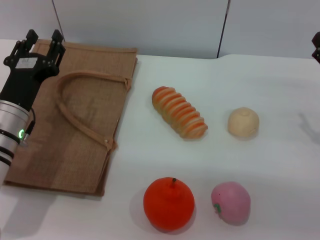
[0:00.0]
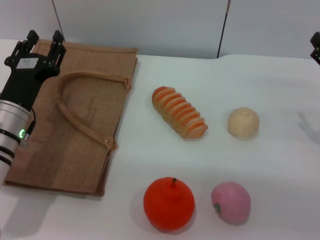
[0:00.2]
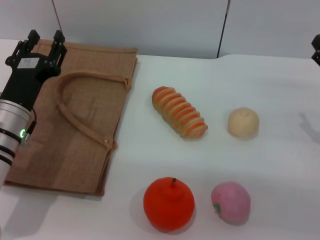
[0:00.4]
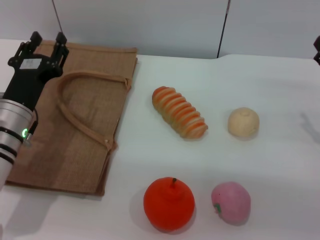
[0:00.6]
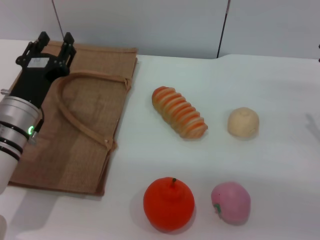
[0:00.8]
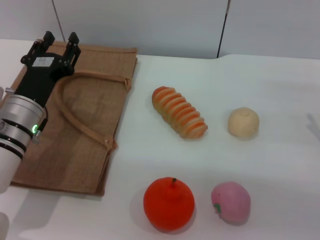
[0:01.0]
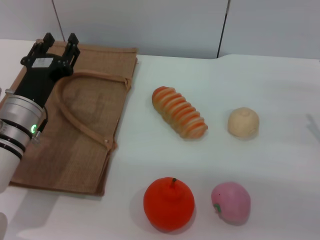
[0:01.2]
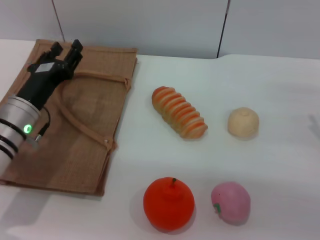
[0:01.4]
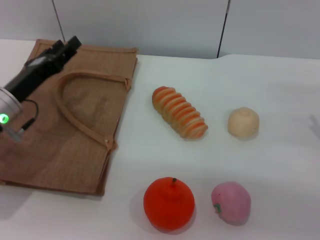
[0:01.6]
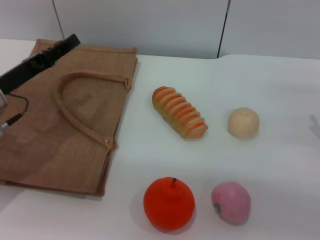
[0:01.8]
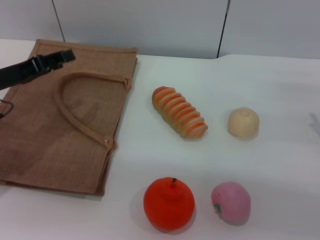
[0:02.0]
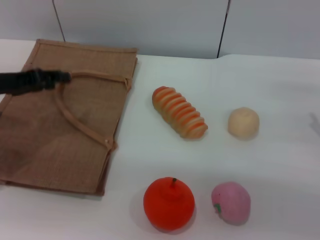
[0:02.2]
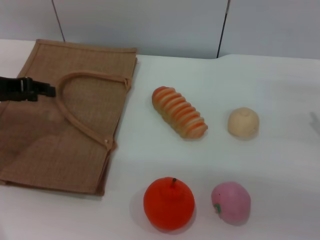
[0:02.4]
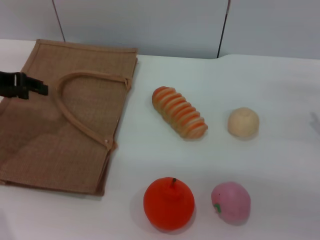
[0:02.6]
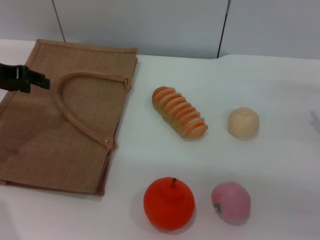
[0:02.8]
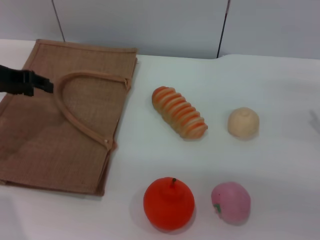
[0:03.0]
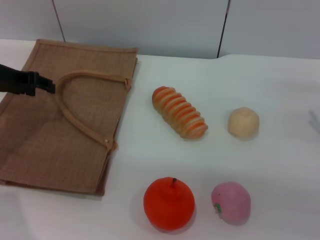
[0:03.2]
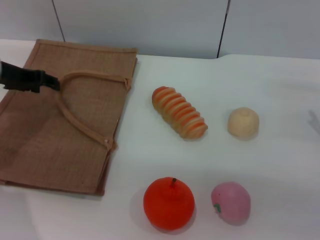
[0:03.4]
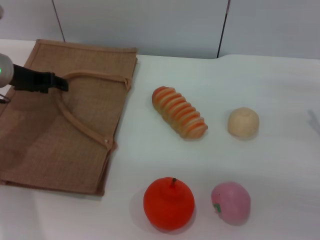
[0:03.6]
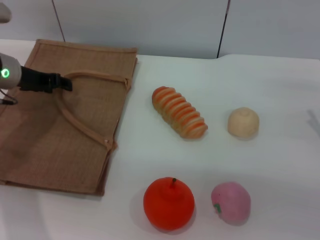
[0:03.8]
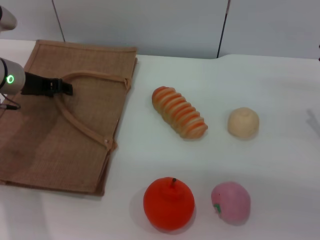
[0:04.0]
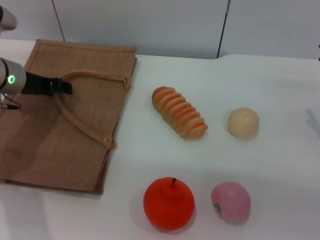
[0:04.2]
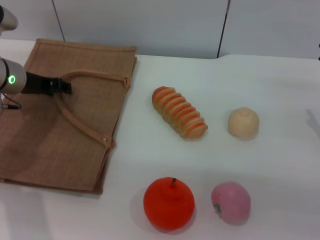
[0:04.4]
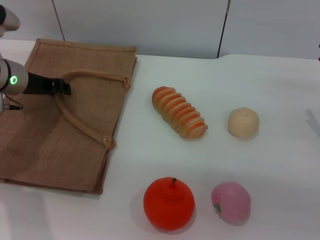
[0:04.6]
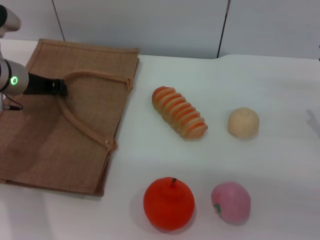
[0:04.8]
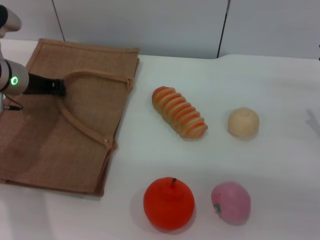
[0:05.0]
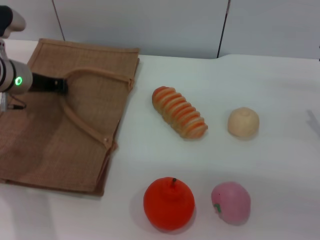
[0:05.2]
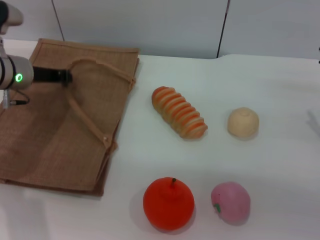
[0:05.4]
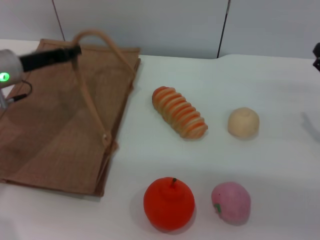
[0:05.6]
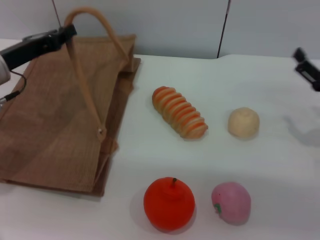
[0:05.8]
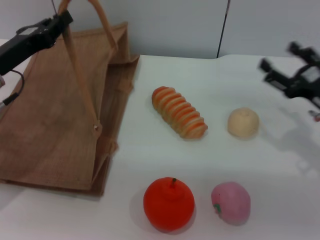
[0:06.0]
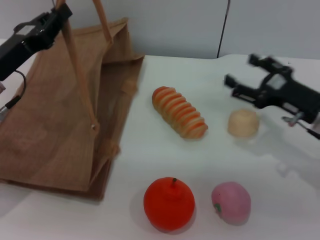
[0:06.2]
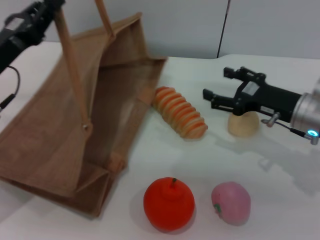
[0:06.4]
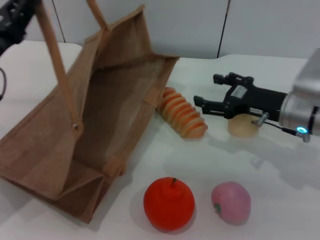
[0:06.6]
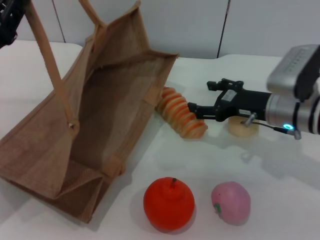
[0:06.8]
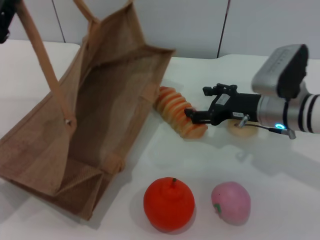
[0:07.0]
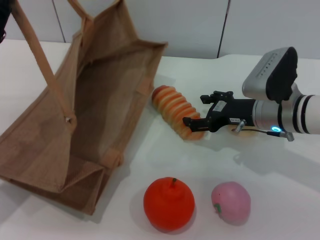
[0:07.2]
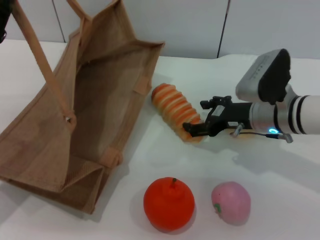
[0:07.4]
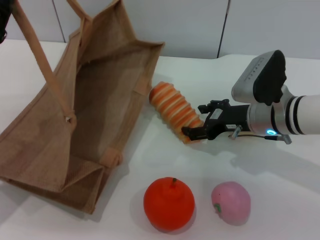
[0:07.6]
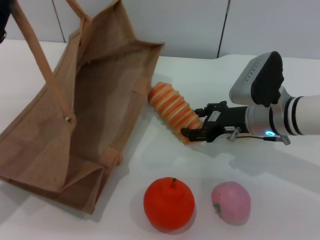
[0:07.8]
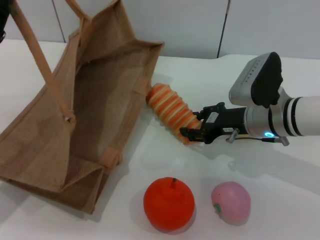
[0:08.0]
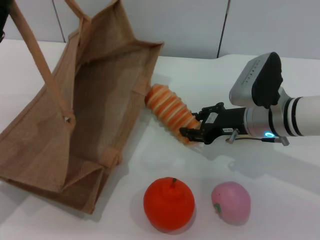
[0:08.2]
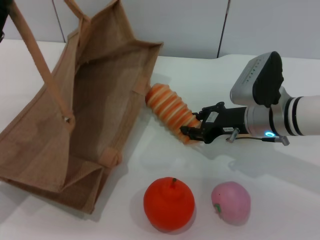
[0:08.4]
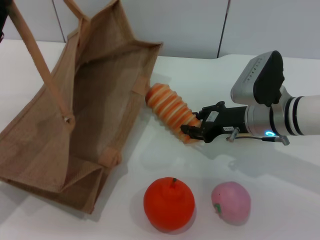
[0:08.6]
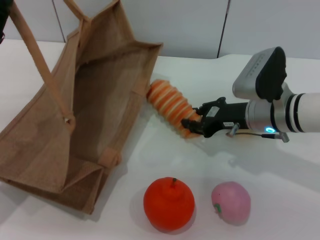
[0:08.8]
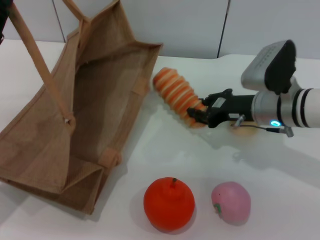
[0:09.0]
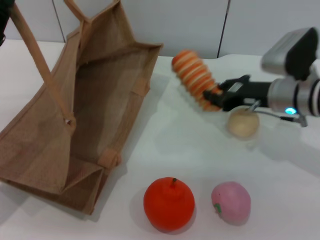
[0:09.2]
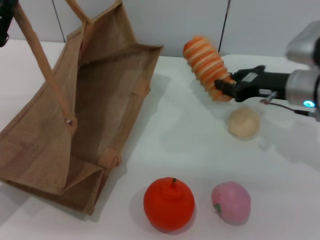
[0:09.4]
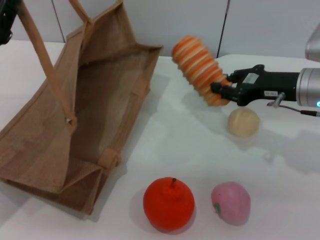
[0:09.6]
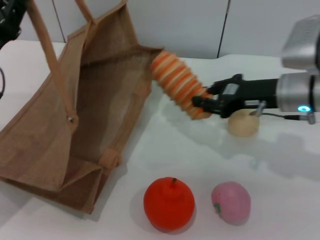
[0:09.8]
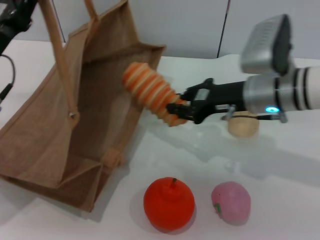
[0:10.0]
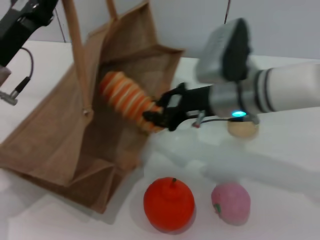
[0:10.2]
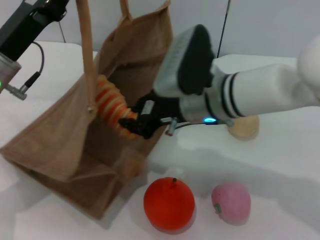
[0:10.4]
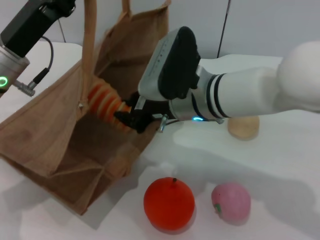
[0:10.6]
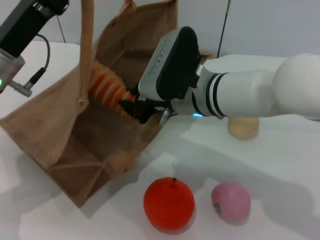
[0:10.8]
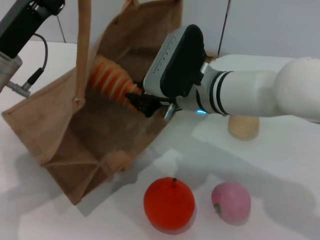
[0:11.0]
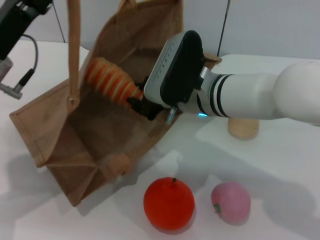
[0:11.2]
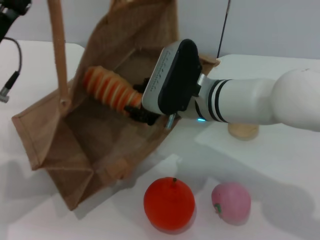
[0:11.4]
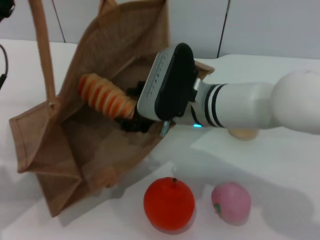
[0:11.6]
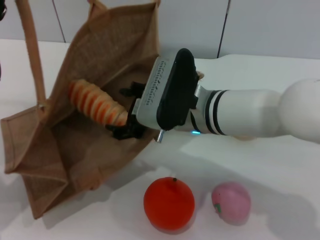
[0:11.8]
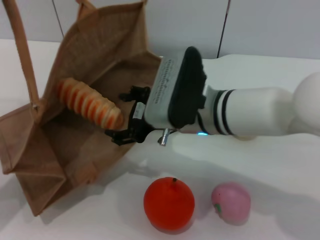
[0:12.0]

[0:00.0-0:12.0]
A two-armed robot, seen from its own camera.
Task of the whole recording: pick up the bread and egg yolk pastry from the table and place it in the brown handbag.
Step, 0:00.0 to 0:05.8: Lift the woven bag with the left gripper to open it.
Step, 0:06.0 to 0:09.2: Pick up the bread with the right gripper.
Step, 0:09.4 to 0:12.0: Place the bread into the woven bag with the right gripper.
0:01.6 to 0:03.0: The left gripper travels upward, forward and to the left by about 15 cm.
0:03.0 to 0:04.4: The left gripper is displaced downward by some 5 cm.
0:04.4 to 0:06.0: The left gripper moves backward, about 10 cm, and closes up.
0:06.0 to 0:07.6: The left gripper is displaced backward by roughly 5 cm. Meanwhile the right gripper moves to the left and forward, roughly 15 cm.
0:07.6 to 0:09.0: The right gripper closes its fingers.
0:09.0 to 0:10.4: The right gripper is displaced to the left and upward by roughly 15 cm, while the left gripper moves to the right, about 5 cm.
0:10.4 to 0:12.0: The left gripper shifts by roughly 5 cm. The right gripper opens.

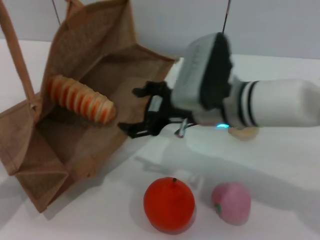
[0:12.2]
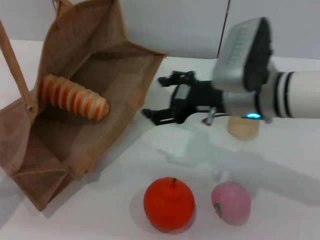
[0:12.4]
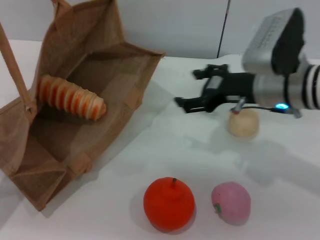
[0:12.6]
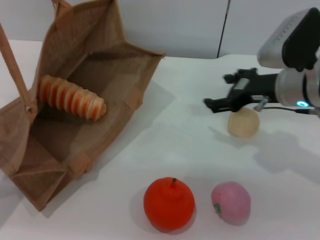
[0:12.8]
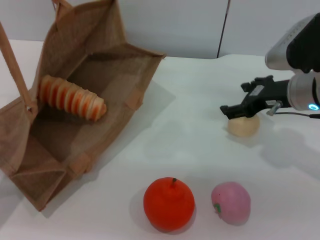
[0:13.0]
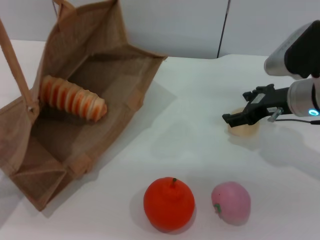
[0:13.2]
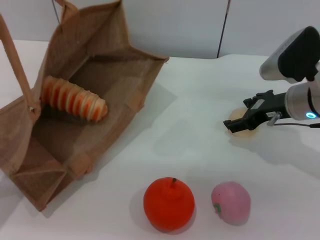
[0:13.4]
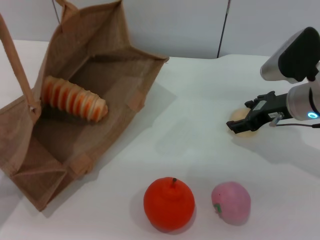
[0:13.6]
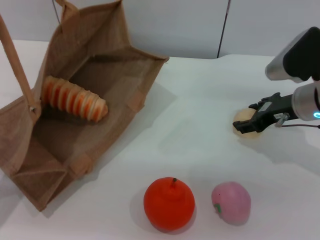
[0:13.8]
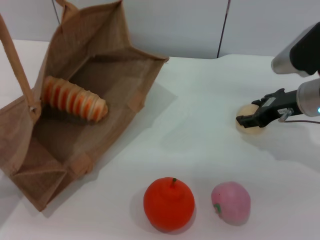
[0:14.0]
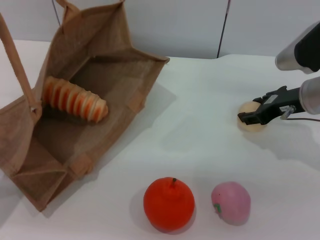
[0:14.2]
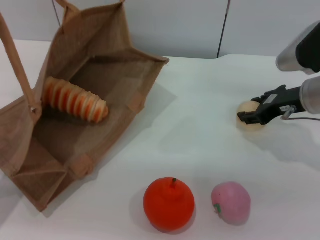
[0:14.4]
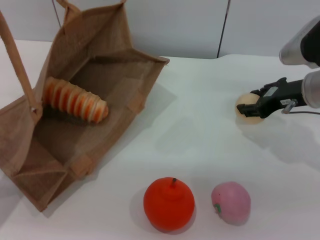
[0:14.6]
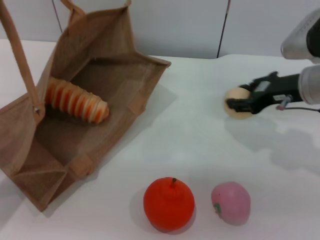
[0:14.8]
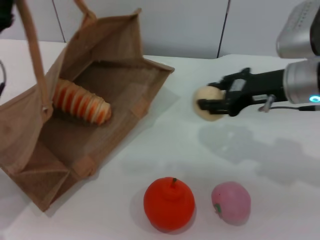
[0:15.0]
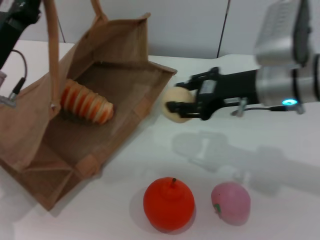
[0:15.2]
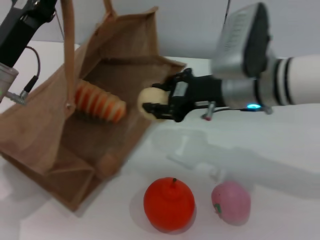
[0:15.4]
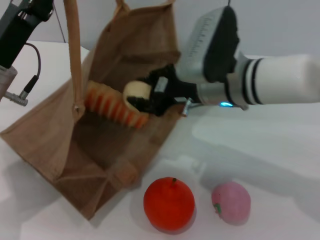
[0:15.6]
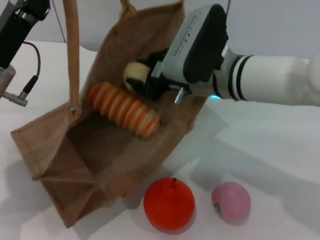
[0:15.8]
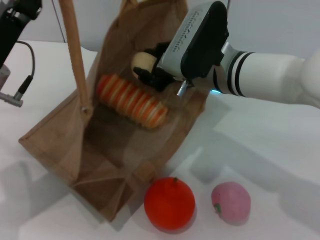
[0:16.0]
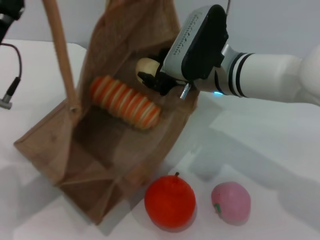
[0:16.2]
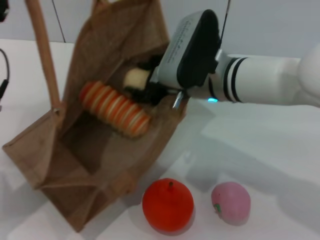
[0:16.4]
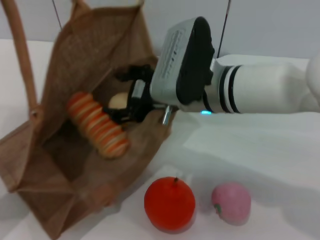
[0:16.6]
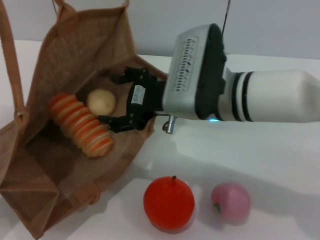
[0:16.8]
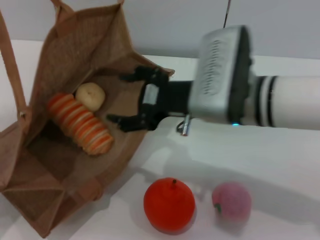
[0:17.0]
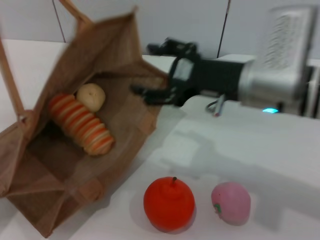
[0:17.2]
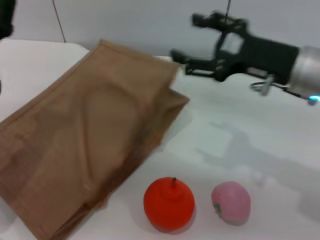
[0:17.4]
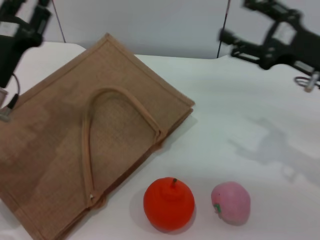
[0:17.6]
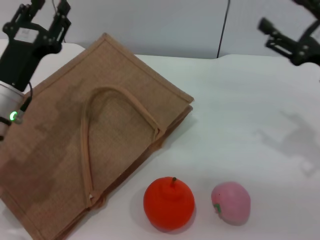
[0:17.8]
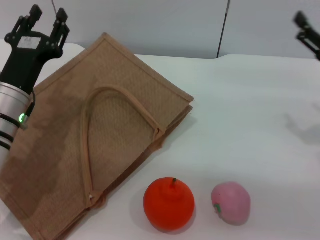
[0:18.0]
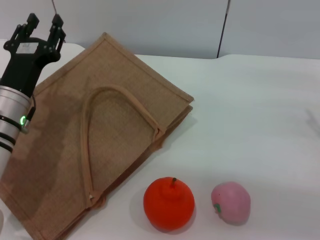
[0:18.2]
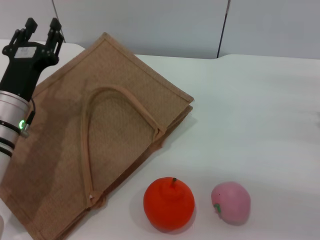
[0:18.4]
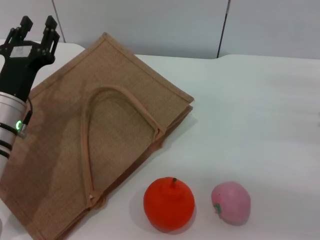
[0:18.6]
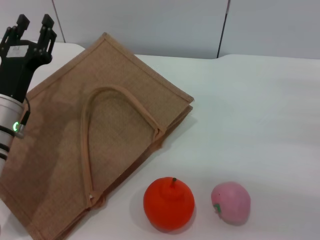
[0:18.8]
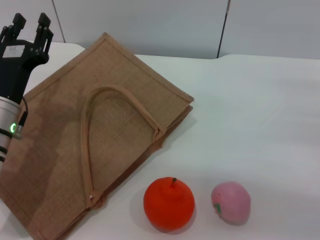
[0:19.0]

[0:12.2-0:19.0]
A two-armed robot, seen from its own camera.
Task of the whole recording: pick up the bread and egg yolk pastry from the table and place it in the brown handbag.
Step, 0:12.2 to 0:14.6: Pick up the egg yolk pastry with the right gripper.
Step, 0:14.8 to 0:16.8: Place the egg yolk pastry into the woven bag with the right gripper.
Step, 0:17.0 to 0:17.6: Lower the woven bag with the left gripper to close it.
0:12.2 to 0:13.6: The right gripper is displaced to the right by roughly 15 cm.
0:13.6 to 0:15.0: The right gripper is displaced upward by some 5 cm, and closes up.
0:15.0 to 0:16.2: The right gripper moves to the left, about 10 cm.
0:16.2 to 0:17.6: The left gripper opens up; the right gripper goes about 20 cm to the right, and opens.
0:17.6 to 0:19.0: The right gripper heads to the right and downward, covering roughly 10 cm; the left gripper opens its fingers.

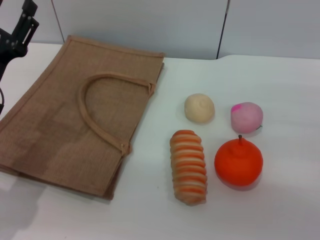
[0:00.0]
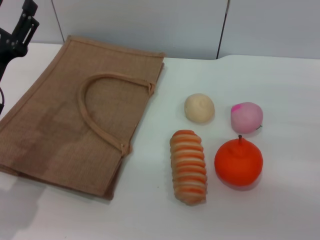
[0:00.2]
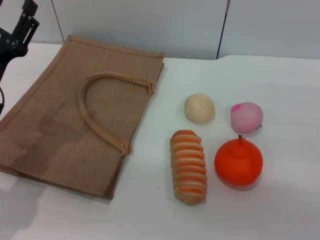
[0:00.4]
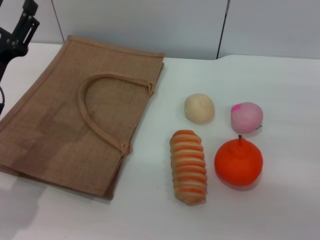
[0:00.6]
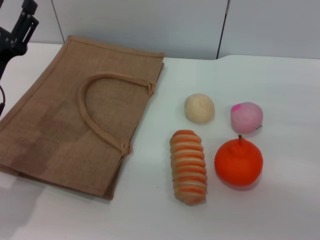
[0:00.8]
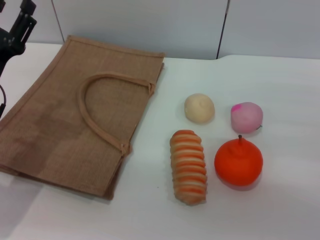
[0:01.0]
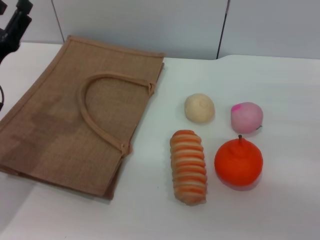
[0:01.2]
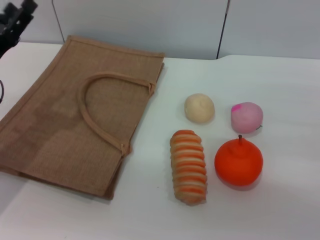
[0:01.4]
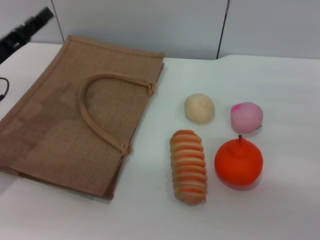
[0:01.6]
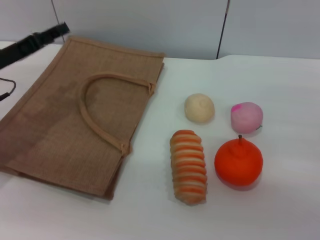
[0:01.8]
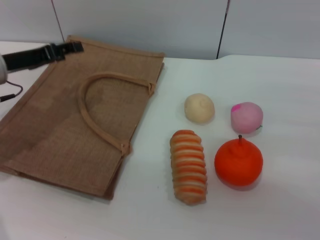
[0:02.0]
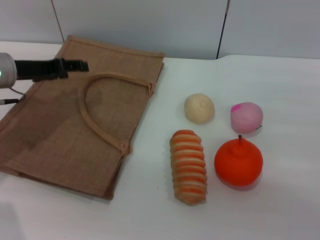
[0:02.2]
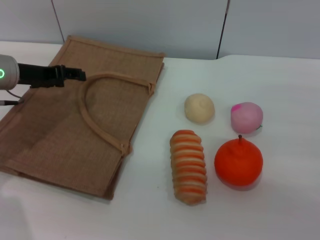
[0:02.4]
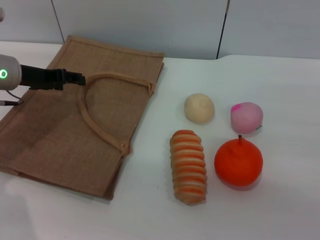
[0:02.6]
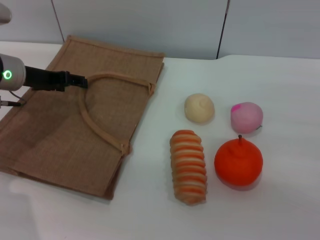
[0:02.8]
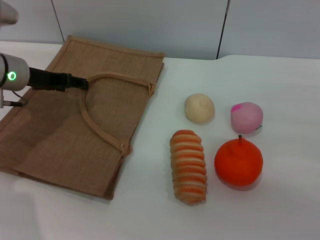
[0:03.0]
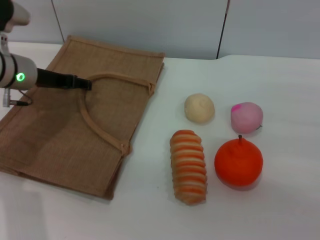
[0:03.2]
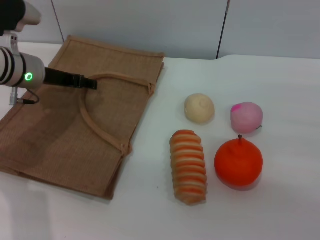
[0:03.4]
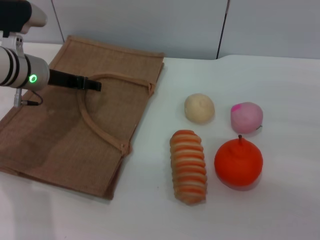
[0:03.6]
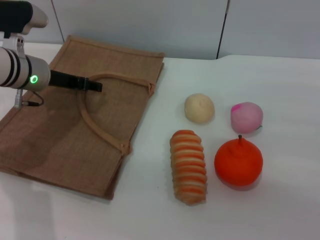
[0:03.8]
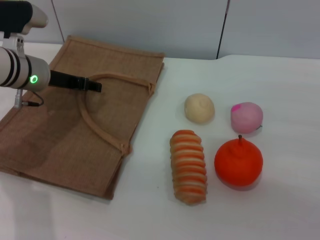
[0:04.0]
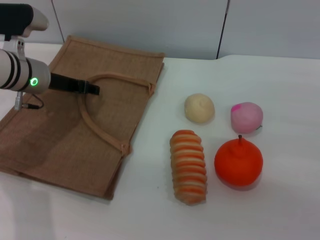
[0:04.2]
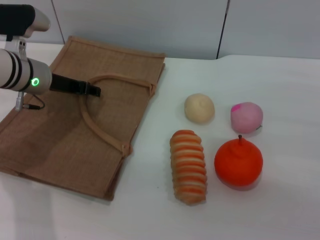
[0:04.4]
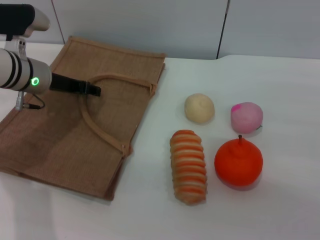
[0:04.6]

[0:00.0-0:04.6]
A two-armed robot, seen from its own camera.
Task of the whole recording: pick up the egg yolk pastry from the table and place it in the brown handbag.
0:00.0 to 0:01.6: The left gripper heads forward, covering some 5 cm.
0:01.6 to 0:03.0: The left gripper shifts some 5 cm forward.
0:03.0 to 0:04.6: The grippers stay close to where they were, moving slightly.
